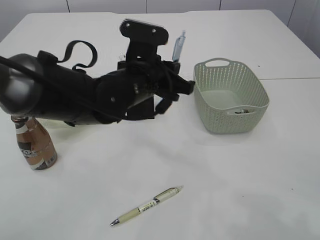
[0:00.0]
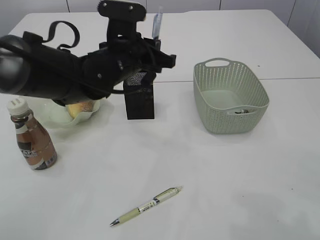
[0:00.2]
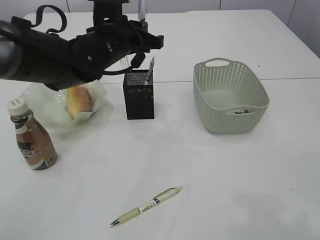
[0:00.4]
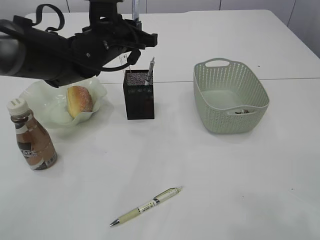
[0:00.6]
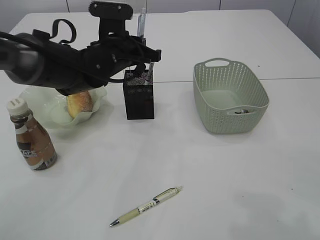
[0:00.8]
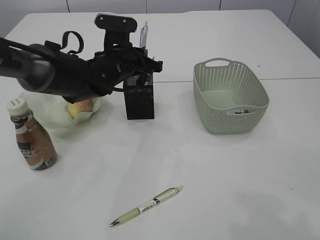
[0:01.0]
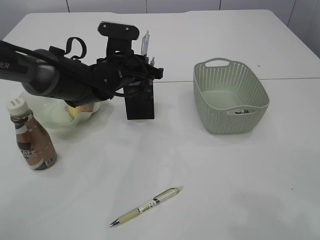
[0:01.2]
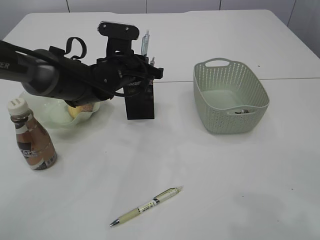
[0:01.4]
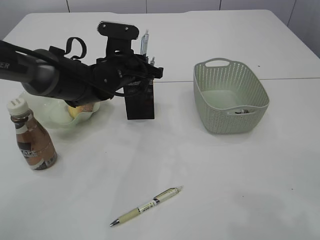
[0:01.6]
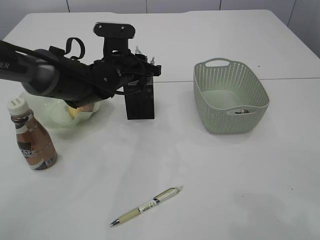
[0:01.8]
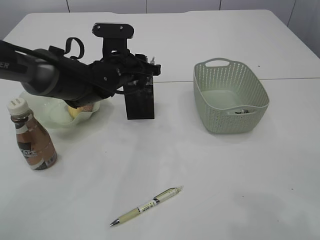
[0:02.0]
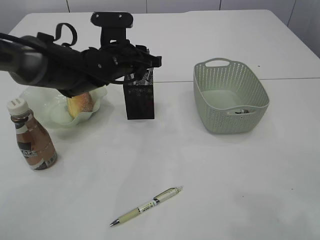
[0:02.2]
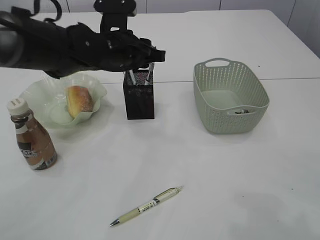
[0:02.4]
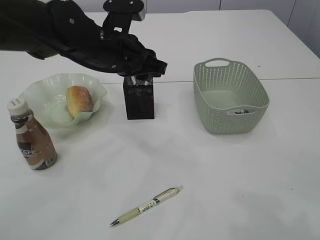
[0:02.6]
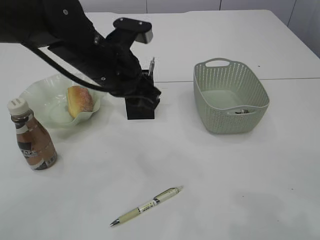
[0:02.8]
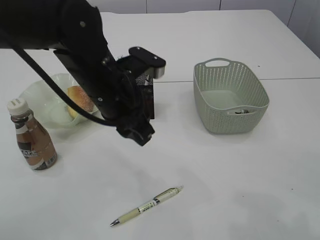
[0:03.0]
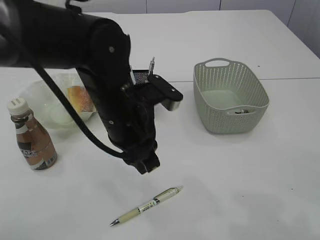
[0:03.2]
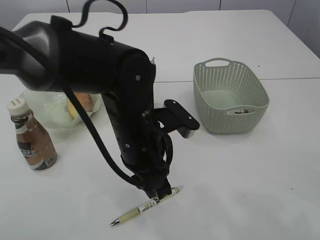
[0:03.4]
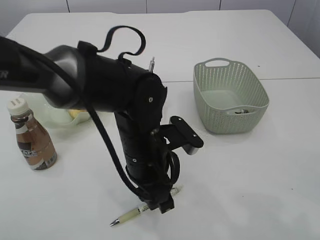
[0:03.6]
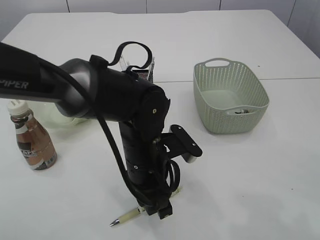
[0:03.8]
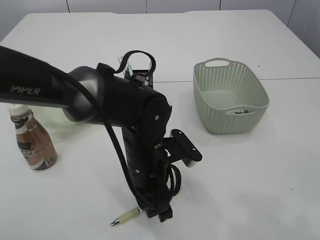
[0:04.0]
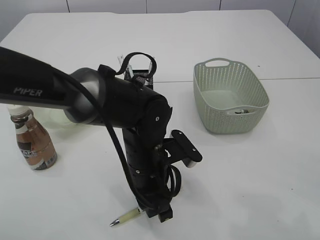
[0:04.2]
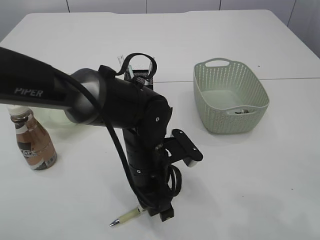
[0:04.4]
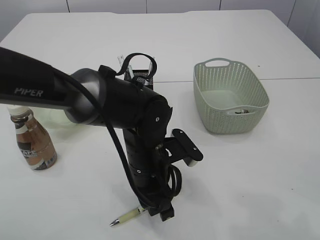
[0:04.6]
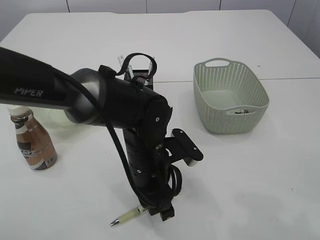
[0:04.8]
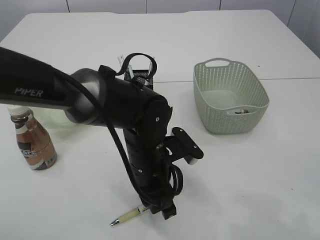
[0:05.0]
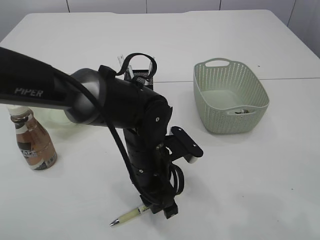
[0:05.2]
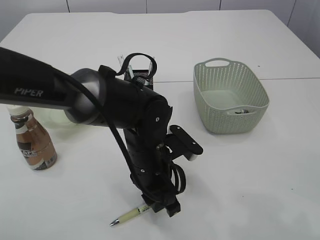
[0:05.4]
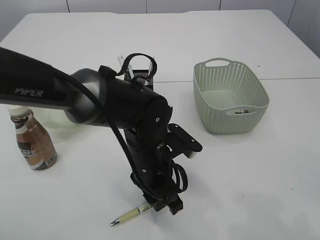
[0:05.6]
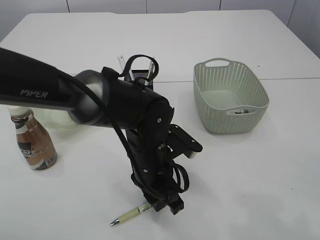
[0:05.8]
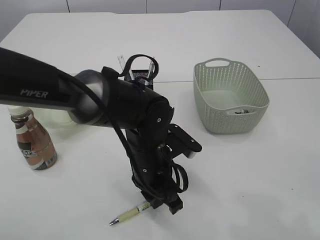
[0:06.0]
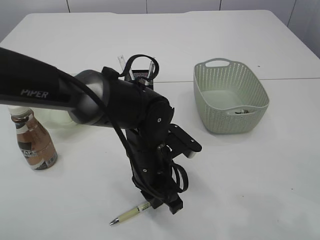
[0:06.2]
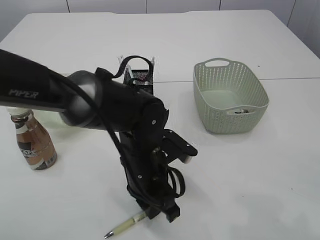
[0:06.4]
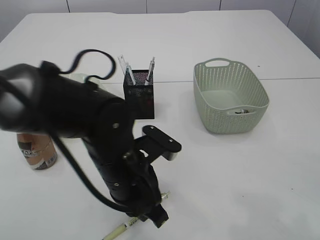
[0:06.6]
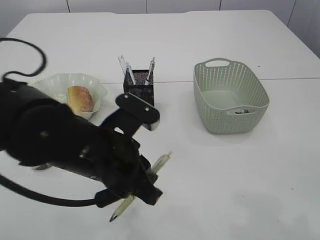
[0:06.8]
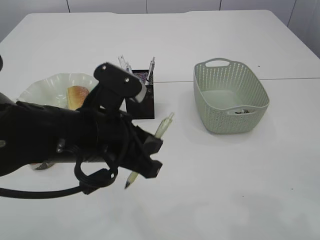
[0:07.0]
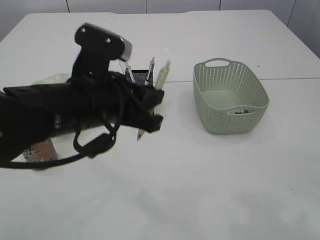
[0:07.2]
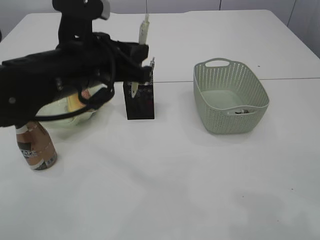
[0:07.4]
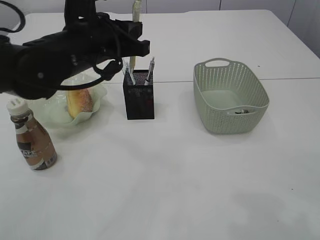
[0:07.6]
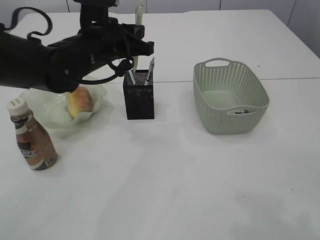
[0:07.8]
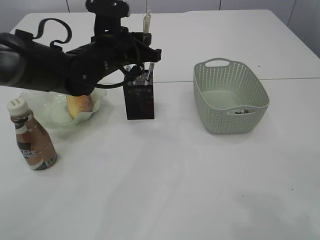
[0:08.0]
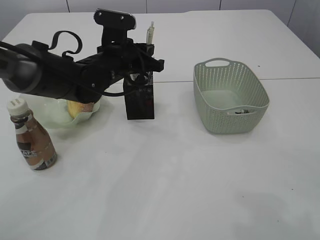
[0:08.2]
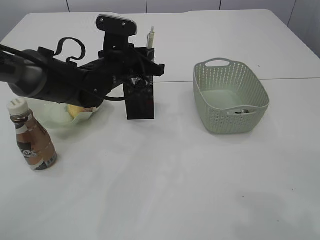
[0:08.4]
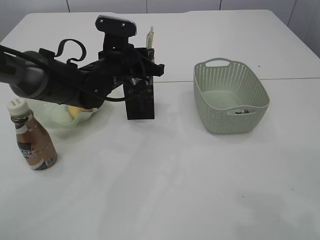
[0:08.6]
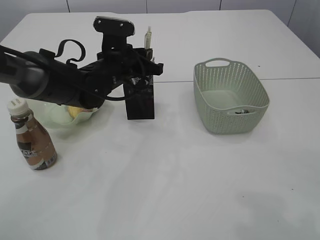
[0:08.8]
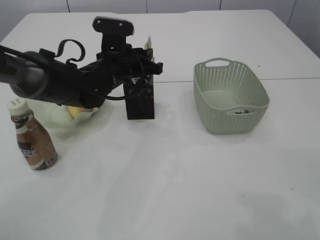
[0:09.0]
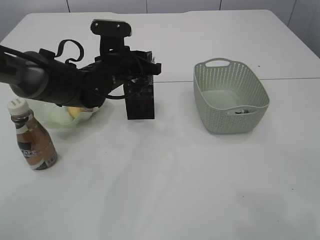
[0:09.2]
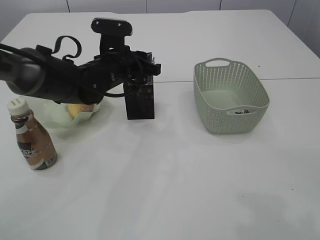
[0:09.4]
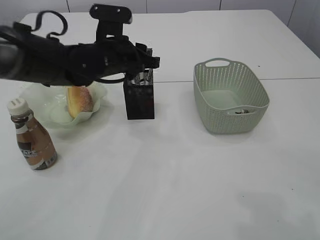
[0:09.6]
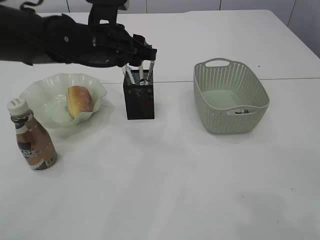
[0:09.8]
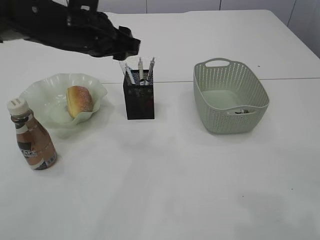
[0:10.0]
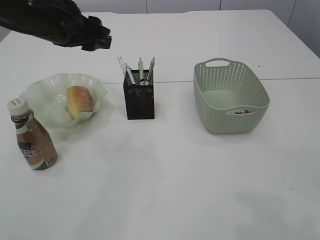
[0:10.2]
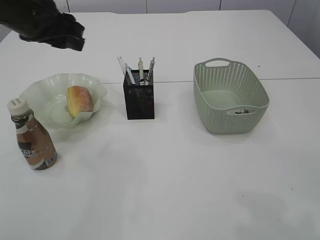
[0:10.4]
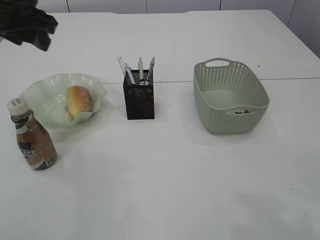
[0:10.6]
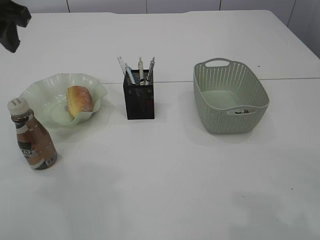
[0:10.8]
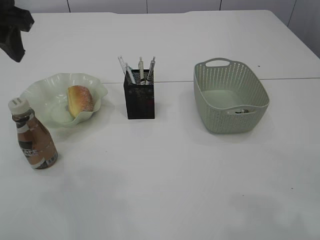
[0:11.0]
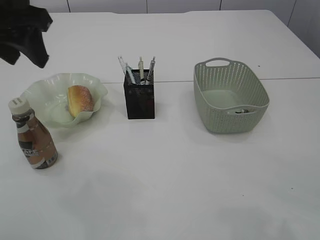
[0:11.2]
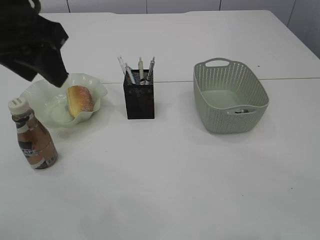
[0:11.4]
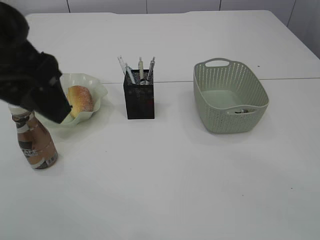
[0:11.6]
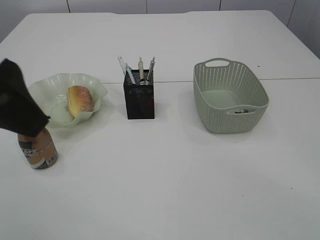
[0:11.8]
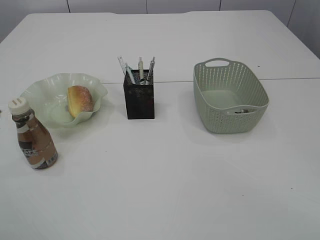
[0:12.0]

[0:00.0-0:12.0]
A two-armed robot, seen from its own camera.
Step, 0:00.0 to 0:02.8: Place the pen into the pen holder.
Step, 0:03.0 to 0:07.2: Pick up the pen with left arm.
Step, 0:07.4 to 0:10.0: Place the pen into the pen holder.
0:00.0 to 0:01.6: The left gripper goes roughly 10 cm forward.
0:01.6 to 0:03.0: The left gripper goes about 15 cm backward and upward.
0:03.0 to 0:04.4: The left gripper goes roughly 15 cm downward and to the right.
0:04.4 to 0:06.0: The grippers make only small movements.
0:06.0 to 0:07.6: The left gripper heads upward, to the left and forward, covering roughly 20 cm.
0:07.6 to 0:09.0: The left gripper heads forward and downward, covering roughly 10 cm.
0:09.0 to 0:10.4: The left gripper is displaced upward, to the left and backward by roughly 20 cm, and opens.
0:10.4 to 0:12.0: The left gripper moves backward, approximately 20 cm.

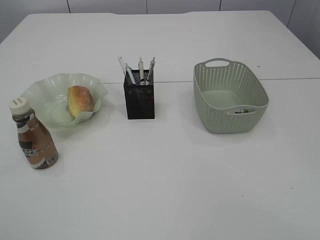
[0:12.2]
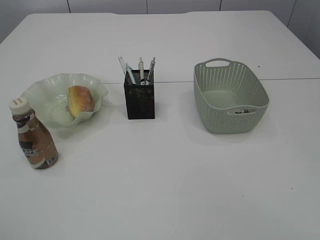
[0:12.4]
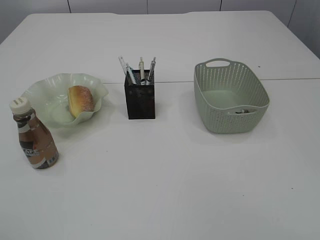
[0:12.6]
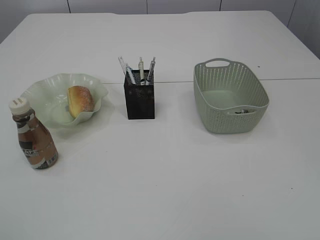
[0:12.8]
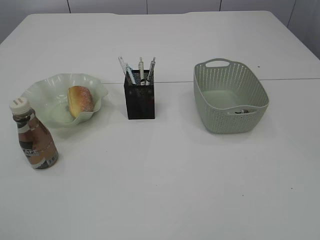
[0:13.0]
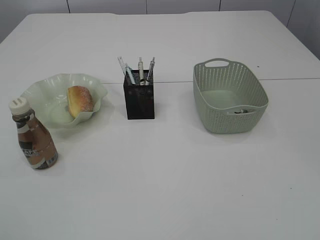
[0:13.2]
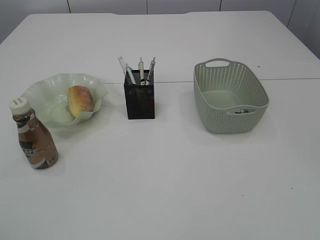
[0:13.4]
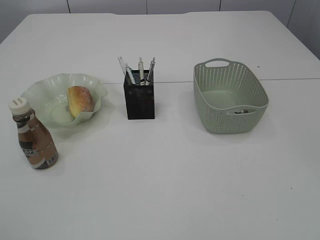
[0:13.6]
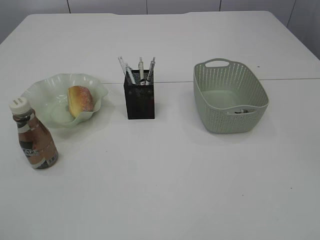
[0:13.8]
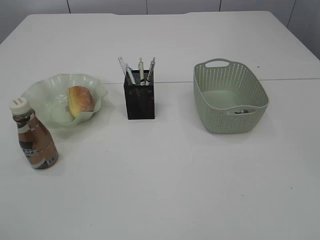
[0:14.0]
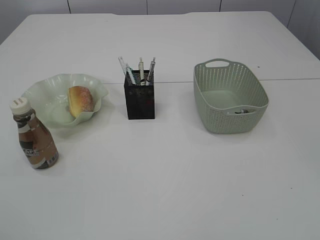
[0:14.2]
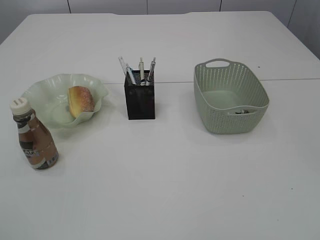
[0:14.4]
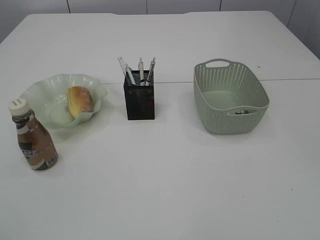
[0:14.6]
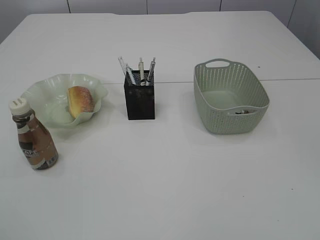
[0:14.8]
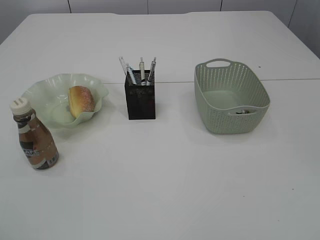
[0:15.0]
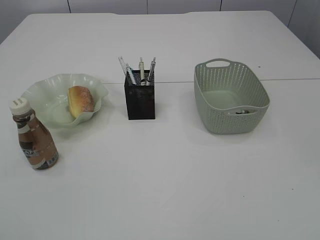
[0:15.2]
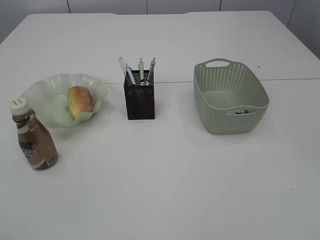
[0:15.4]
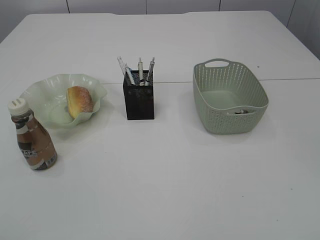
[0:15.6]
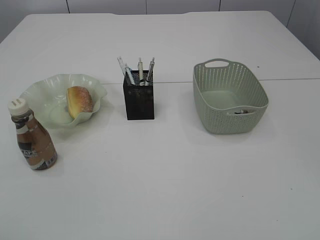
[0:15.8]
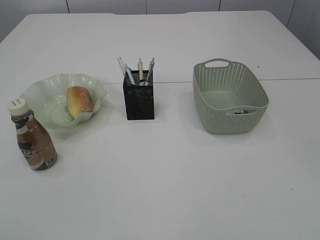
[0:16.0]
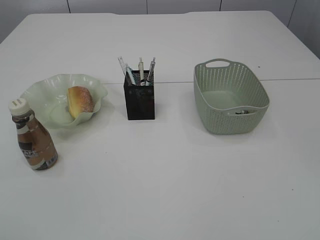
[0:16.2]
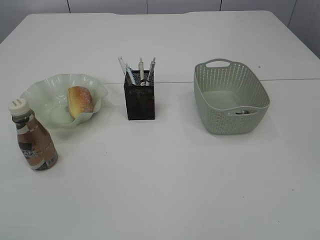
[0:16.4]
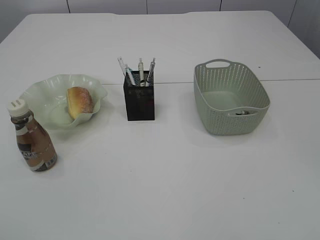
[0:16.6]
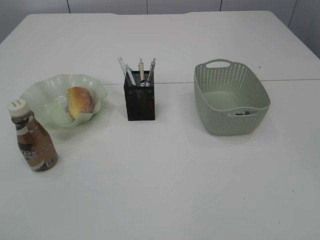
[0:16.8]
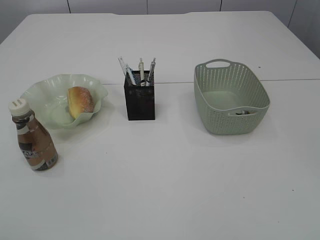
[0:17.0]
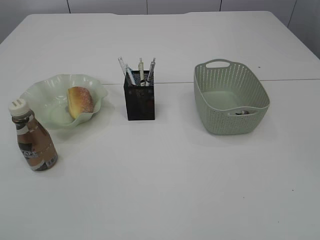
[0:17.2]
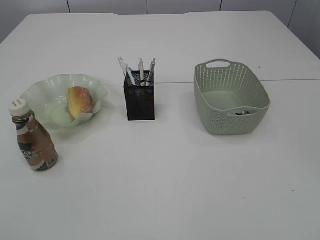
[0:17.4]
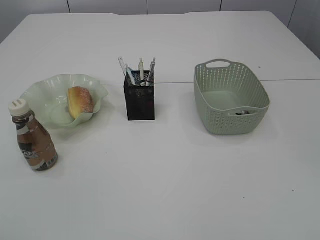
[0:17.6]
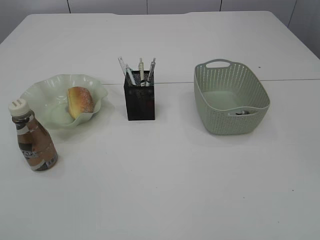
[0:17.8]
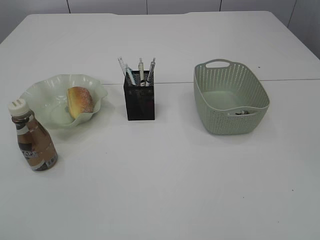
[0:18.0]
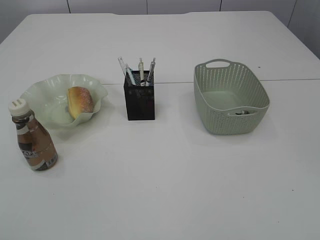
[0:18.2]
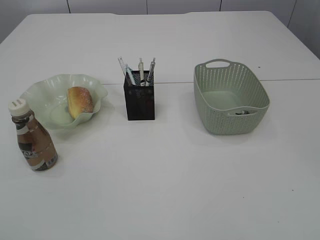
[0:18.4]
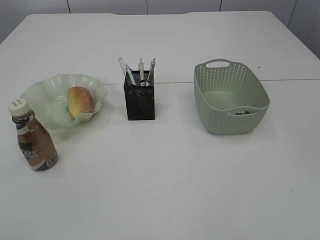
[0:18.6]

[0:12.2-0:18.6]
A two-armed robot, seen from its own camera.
0:17.0 to 0:18.6: Both grippers stay about where they are.

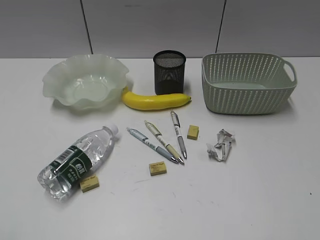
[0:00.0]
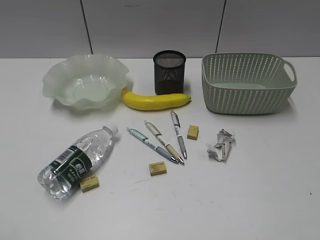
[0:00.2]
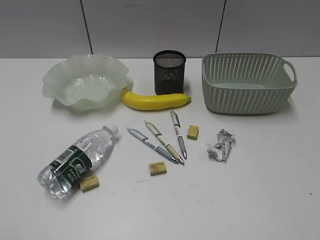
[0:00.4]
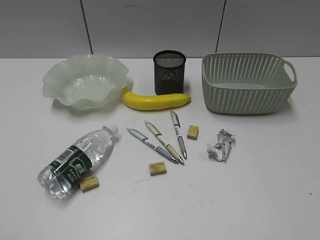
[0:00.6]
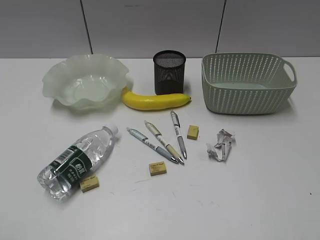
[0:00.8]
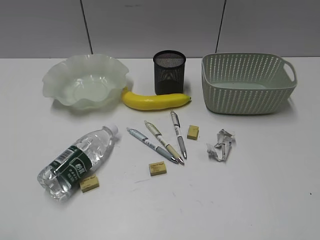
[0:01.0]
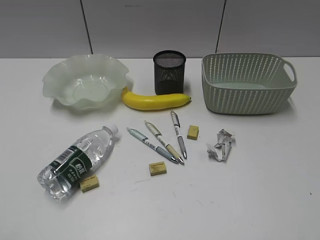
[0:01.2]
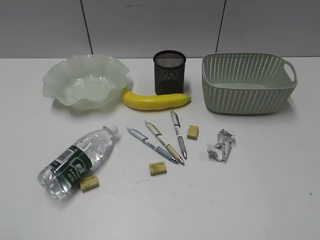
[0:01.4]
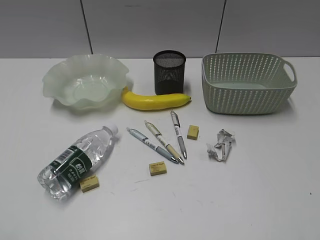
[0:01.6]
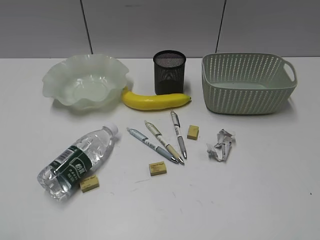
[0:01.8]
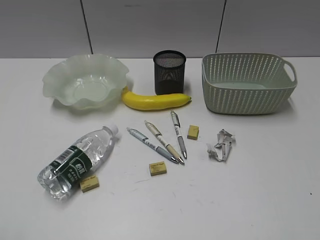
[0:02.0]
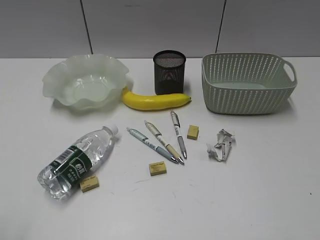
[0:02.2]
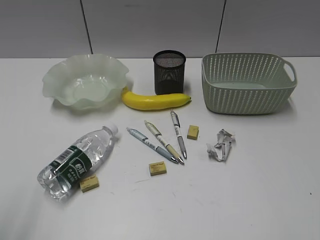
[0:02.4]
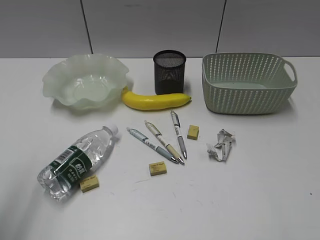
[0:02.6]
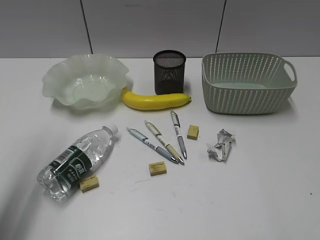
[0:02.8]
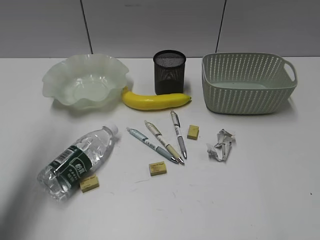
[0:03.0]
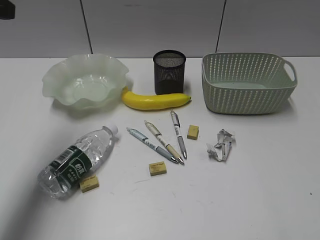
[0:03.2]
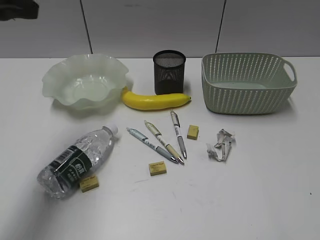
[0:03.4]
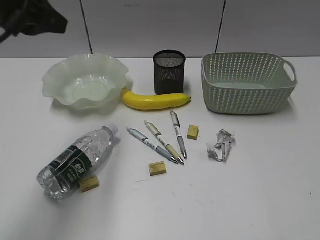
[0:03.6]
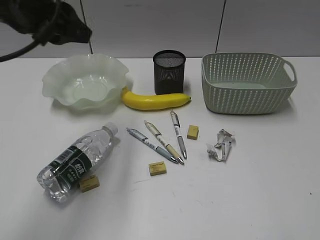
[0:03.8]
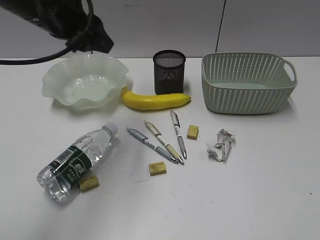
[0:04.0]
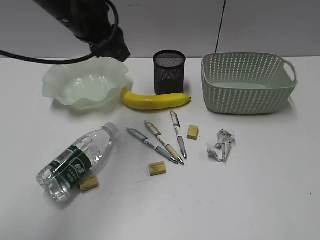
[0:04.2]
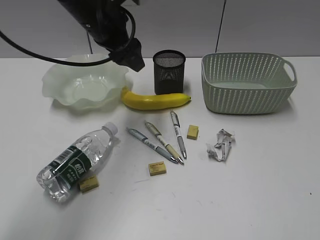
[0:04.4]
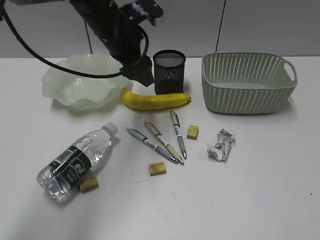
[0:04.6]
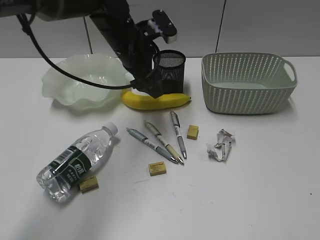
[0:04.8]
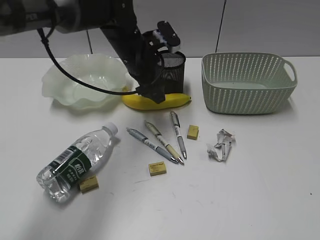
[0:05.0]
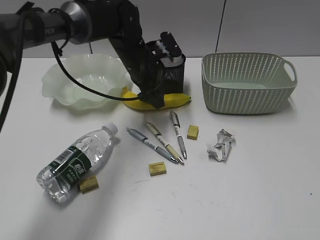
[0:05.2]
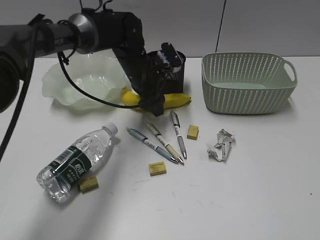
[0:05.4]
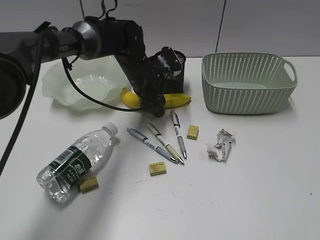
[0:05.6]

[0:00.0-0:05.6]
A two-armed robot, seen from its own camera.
0:01.4 to 0:02.8: The left gripper goes approximately 20 cm forward.
0:02.8 to 0:04.2: The right gripper heads backward, covering some 5 cm. The left gripper shifts roughly 25 cm forward and to the right.
0:04.2 to 0:05.6: The left gripper shifts about 20 cm downward, to the right and forward, and opens up.
